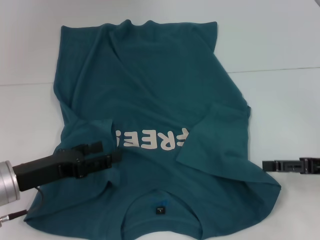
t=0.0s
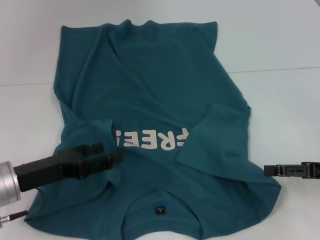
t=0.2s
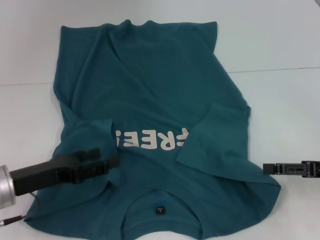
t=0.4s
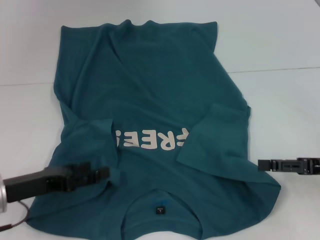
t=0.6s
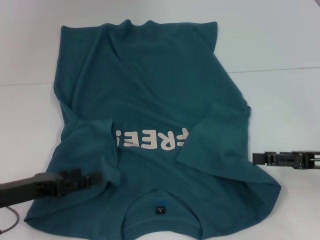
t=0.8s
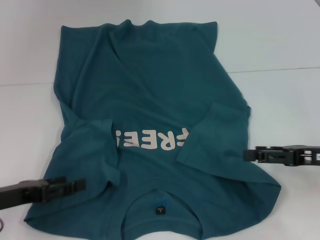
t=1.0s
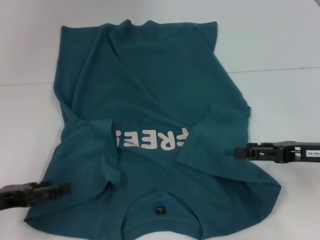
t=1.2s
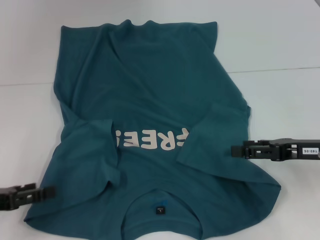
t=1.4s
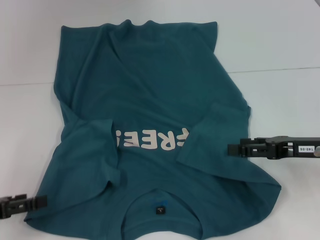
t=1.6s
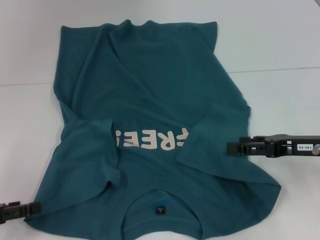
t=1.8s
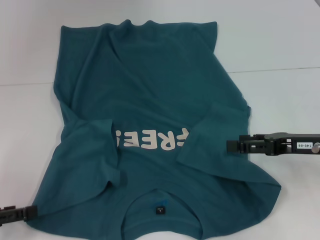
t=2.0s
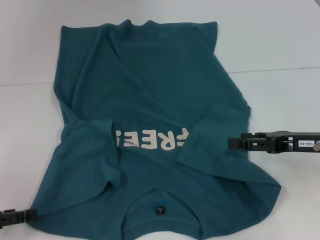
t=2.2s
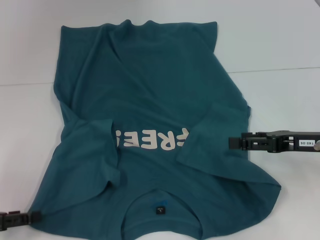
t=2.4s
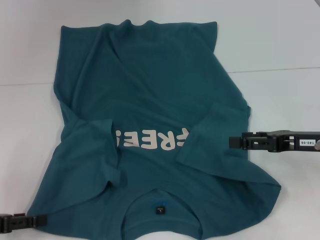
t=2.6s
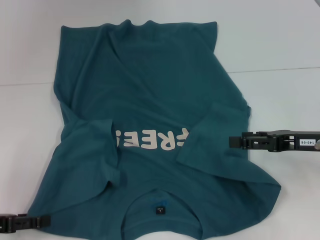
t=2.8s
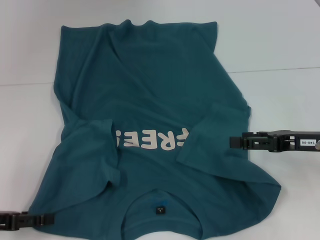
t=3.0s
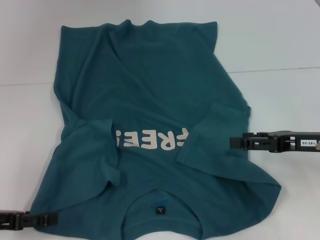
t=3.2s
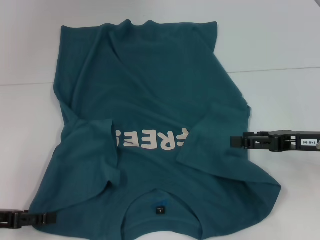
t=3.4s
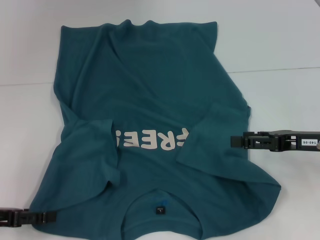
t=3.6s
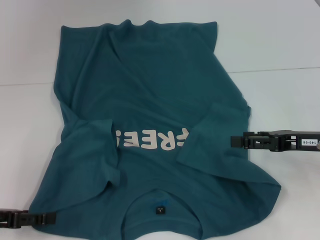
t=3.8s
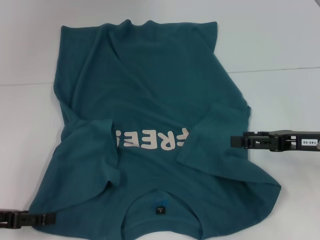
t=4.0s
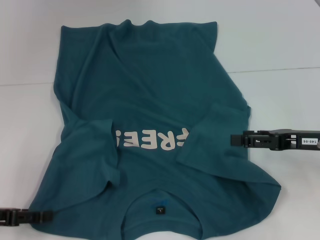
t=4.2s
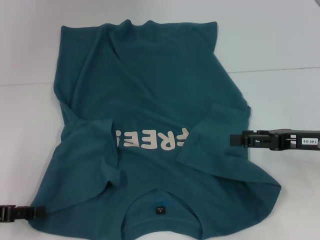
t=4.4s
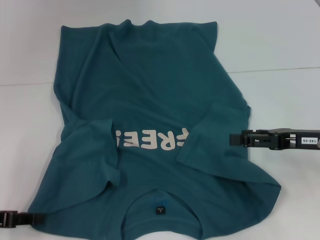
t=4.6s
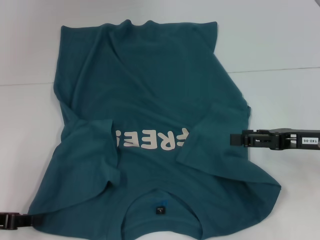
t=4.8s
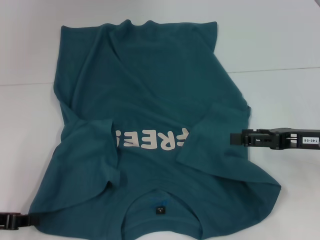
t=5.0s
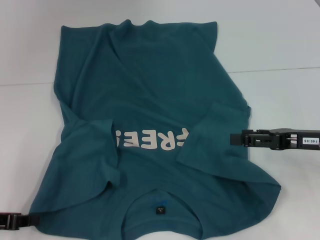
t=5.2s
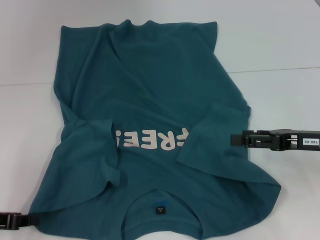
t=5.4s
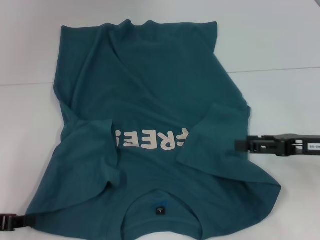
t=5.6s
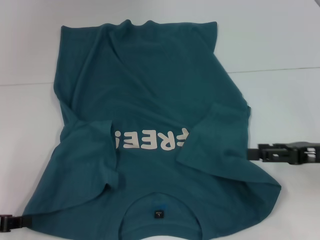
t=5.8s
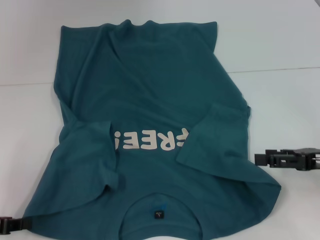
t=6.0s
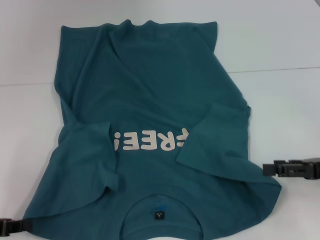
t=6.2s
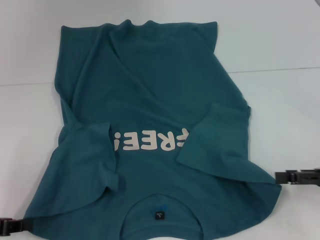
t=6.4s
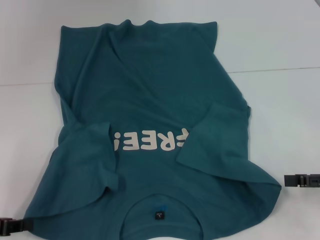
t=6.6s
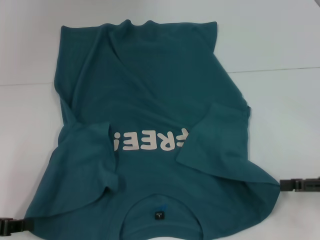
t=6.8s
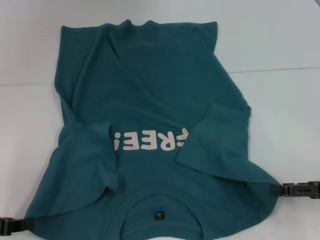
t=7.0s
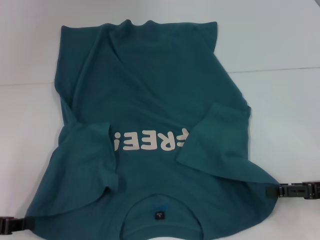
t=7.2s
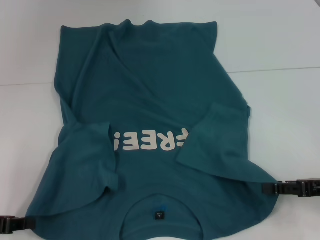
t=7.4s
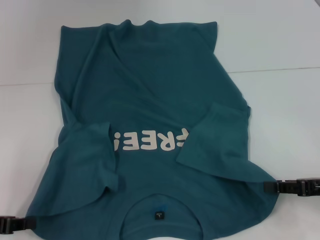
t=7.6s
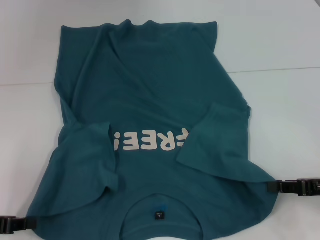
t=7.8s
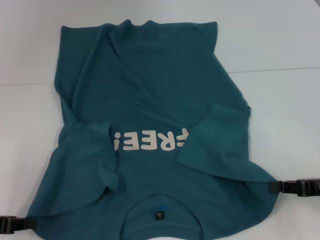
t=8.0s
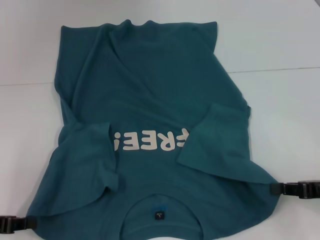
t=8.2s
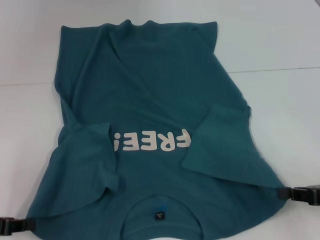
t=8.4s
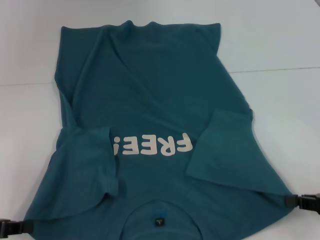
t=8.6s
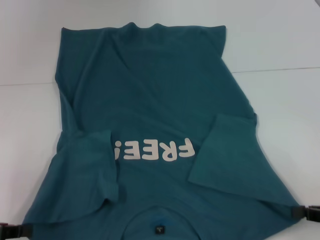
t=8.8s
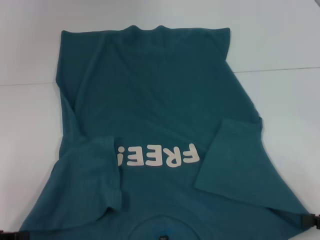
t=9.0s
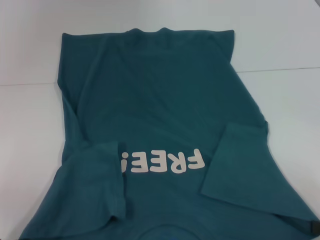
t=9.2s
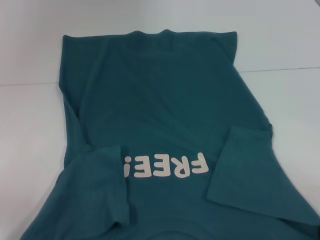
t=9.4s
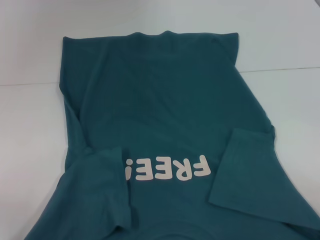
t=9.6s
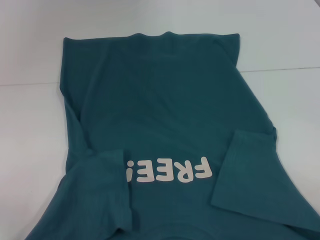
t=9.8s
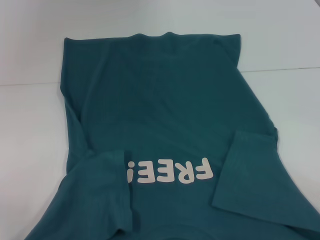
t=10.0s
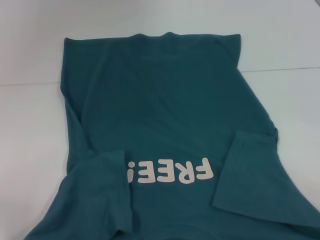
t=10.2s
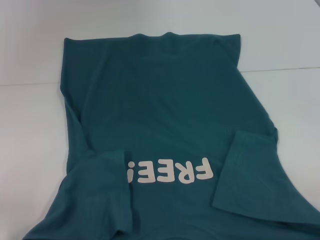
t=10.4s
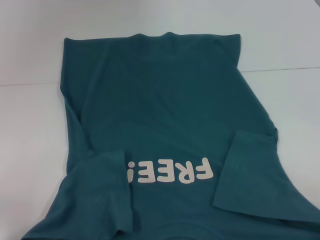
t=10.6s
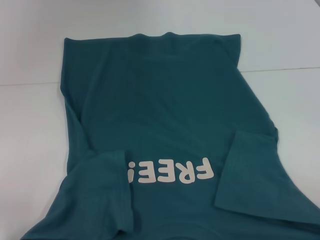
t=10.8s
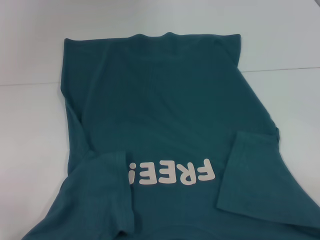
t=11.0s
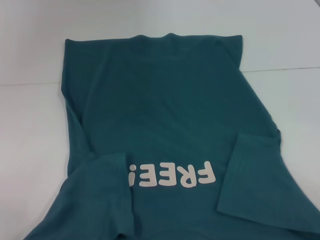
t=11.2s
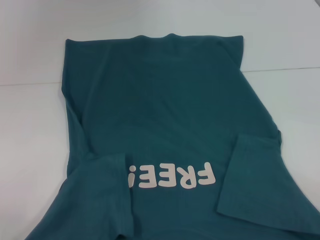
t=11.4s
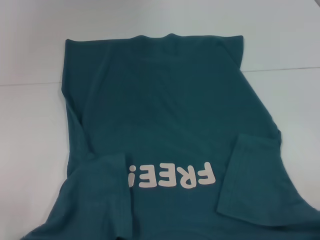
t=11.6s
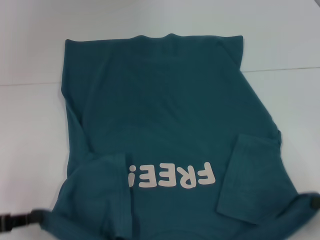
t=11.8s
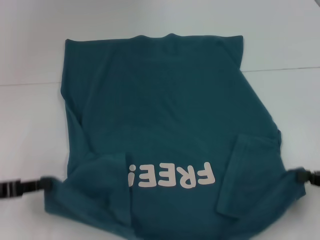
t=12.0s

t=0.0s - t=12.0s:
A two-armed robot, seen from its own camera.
Step, t=0.0s - t=5.4s: Grab the bottom left corner with your left hand.
Step, t=5.6s - t=8.4s: Grab the bottom right corner with your right hand.
t=0.0s - t=1.6s: The right gripper shifts by about 5 cm; the left gripper travels to the left by approximately 10 cm.
t=1.6s - t=3.0s: The grippers move only a little.
t=3.0s - t=4.4s: Neither gripper changes place.
t=4.4s - t=6.0s: The left gripper closes up.
t=6.0s - t=7.6s: There are only small adjustments of the grippers.
t=7.6s - t=9.0s: The right gripper goes some 5 cm backward, and closes up.
t=9.0s - t=10.4s: There are only small adjustments of the grippers.
t=10.4s - t=12.0s: Both grippers travel together forward, about 5 cm.

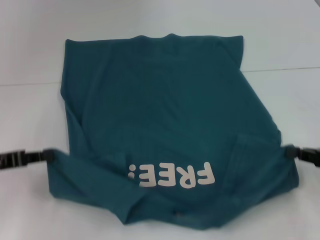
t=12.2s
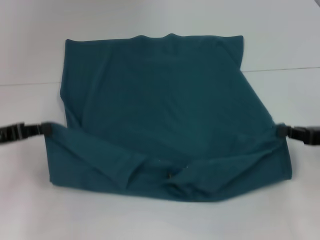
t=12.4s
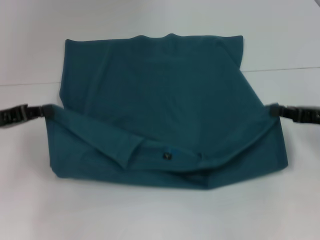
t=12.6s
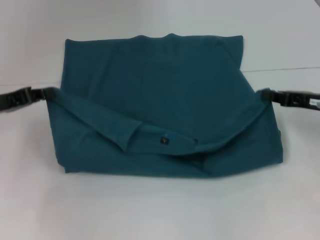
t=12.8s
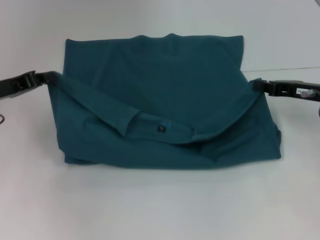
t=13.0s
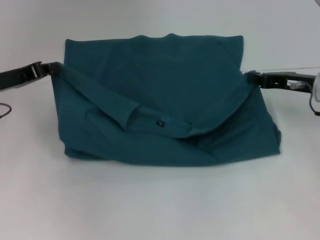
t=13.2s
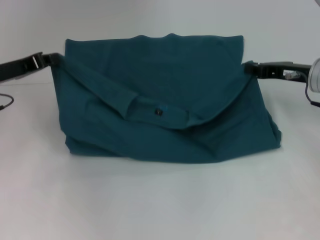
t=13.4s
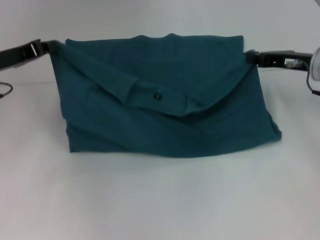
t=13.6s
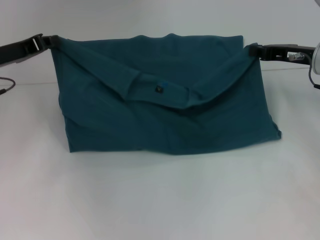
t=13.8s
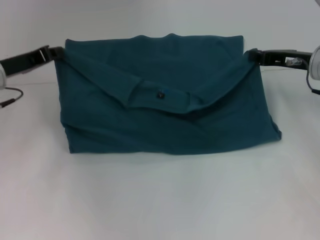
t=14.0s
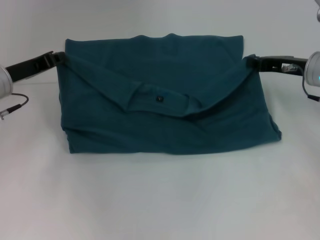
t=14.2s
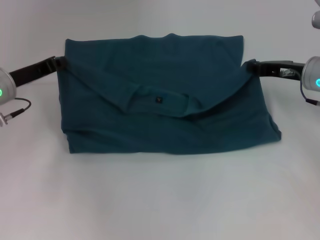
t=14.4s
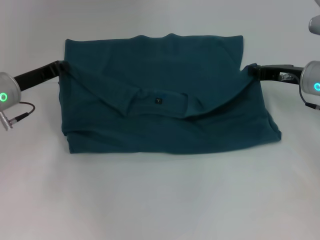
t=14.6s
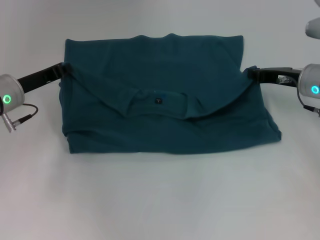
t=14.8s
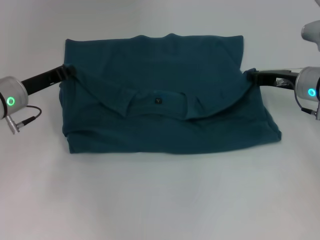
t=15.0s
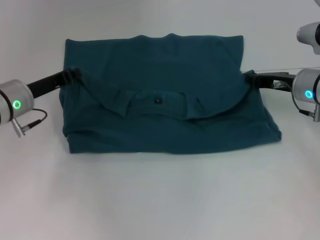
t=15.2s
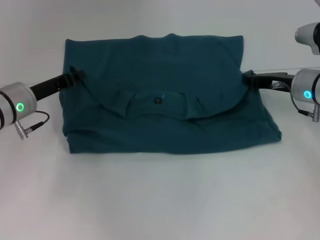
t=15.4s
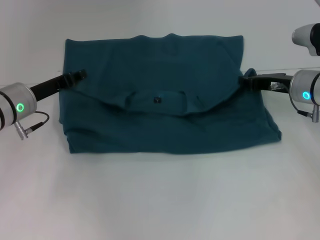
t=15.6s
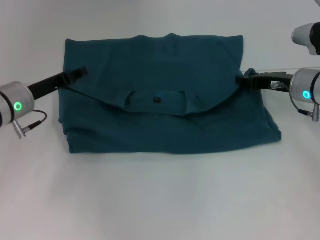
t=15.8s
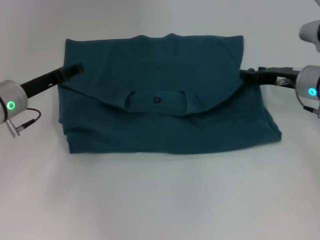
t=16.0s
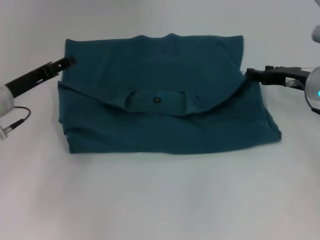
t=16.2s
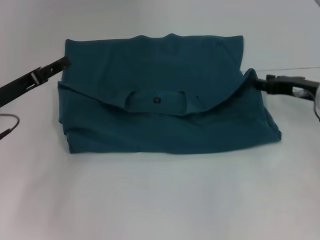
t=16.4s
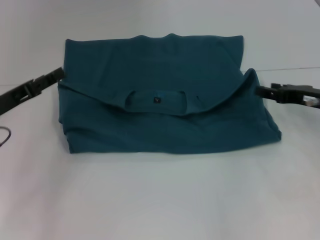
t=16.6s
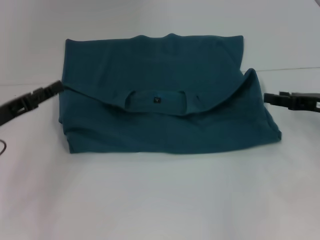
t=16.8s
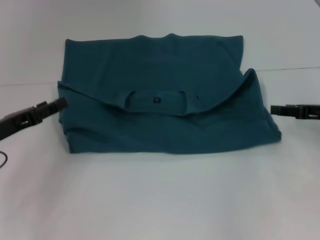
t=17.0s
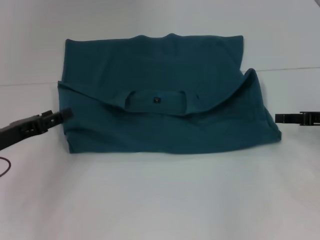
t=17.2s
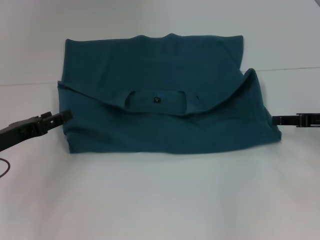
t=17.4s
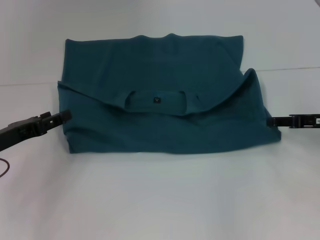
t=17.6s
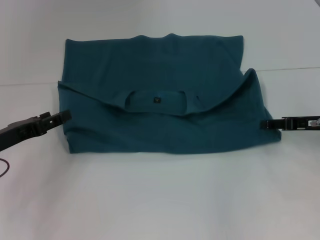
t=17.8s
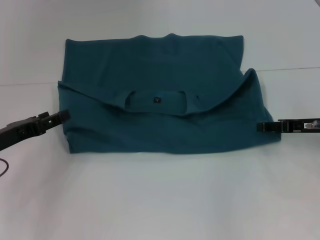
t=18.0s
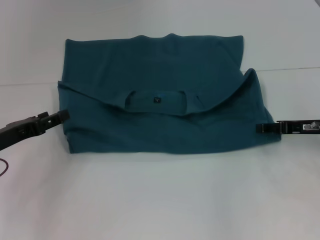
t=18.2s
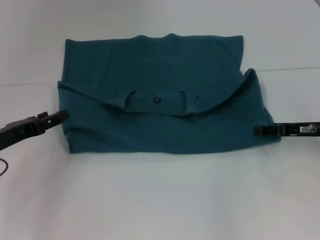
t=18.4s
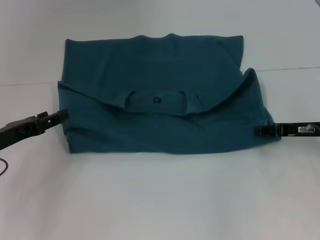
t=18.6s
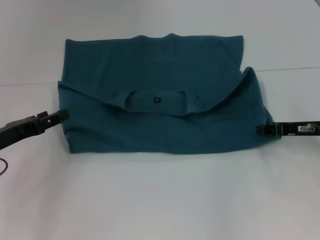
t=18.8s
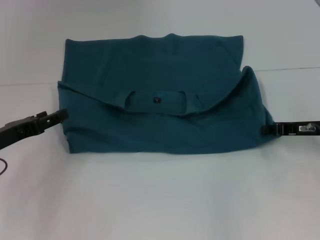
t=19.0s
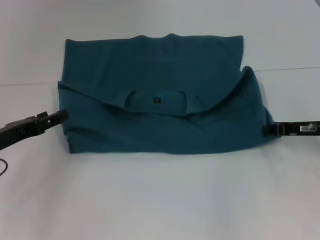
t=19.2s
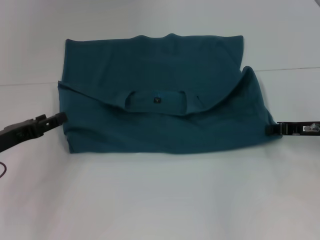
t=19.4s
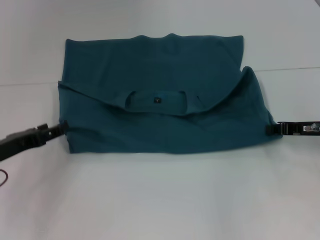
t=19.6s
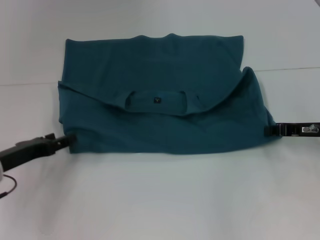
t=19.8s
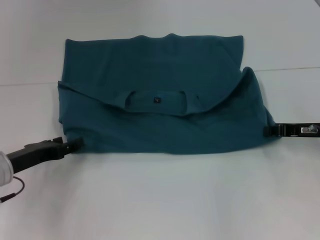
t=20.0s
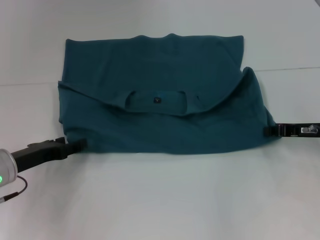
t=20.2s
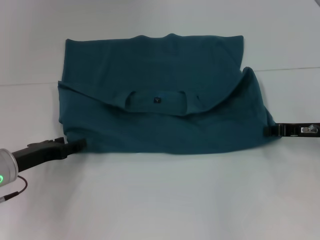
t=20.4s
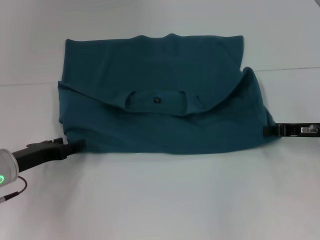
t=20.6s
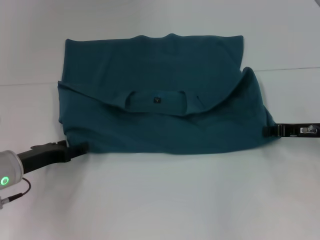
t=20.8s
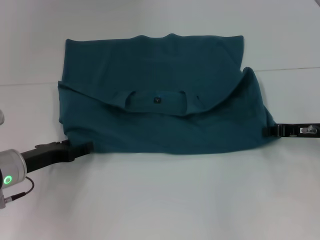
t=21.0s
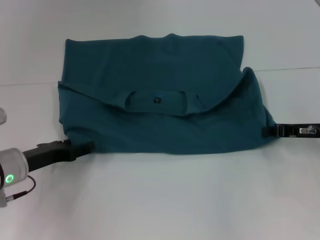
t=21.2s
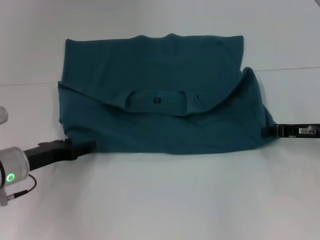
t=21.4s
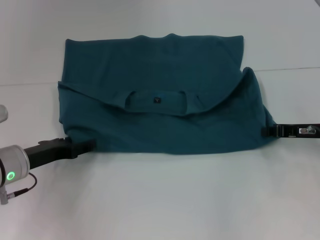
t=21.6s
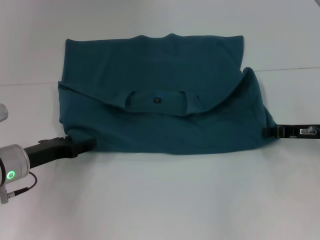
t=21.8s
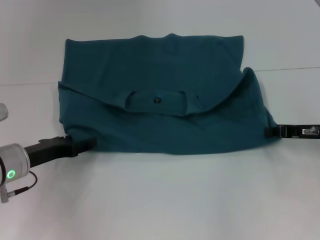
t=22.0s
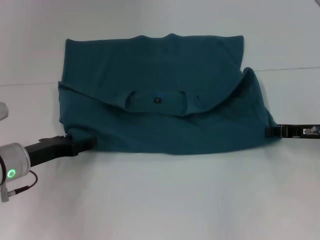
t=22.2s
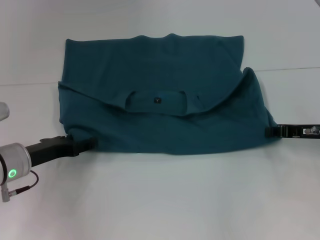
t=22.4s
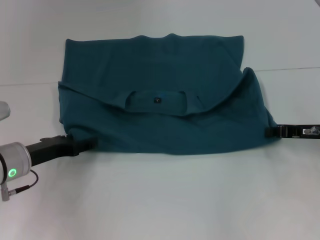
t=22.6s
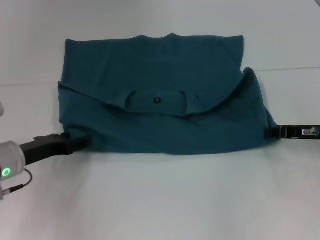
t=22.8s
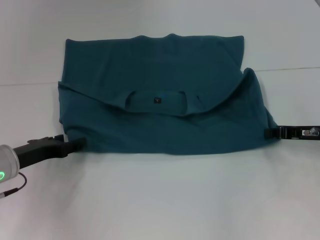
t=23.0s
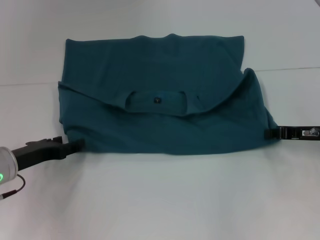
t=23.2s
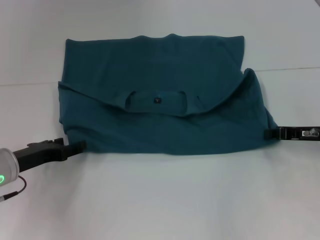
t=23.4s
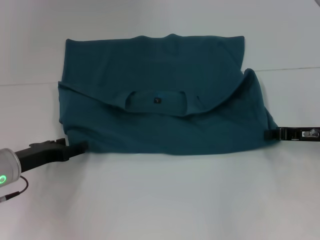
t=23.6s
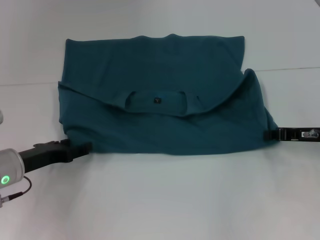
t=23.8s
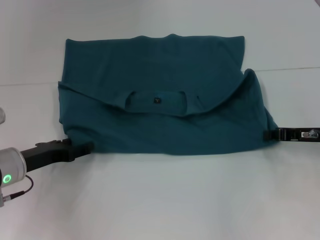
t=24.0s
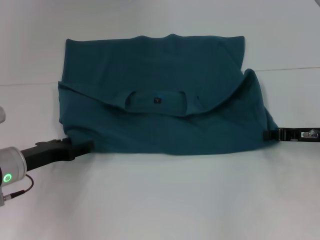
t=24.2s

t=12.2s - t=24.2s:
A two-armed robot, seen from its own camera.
Step, t=12.2s - t=16.0s: Fold the clothes to the left.
Step, t=12.2s - t=16.0s: Fold the clothes to the right.
t=12.2s - t=13.8s: The right gripper goes roughly 20 cm forward and to the left; the left gripper is displaced forward and upward by about 15 cm.
t=13.8s - t=15.2s: The left gripper shifts approximately 5 cm downward; the right gripper shifts by roughly 5 cm.
t=15.2s - t=16.6s: The right gripper moves backward, roughly 5 cm, and opens up. The left gripper travels backward and to the left by about 10 cm, and opens.
t=16.6s - t=18.2s: The grippers move only a little.
t=18.2s - t=19.8s: The right gripper closes its fingers.
t=19.8s - t=21.2s: The grippers stay close to where they were, moving slightly.
t=21.2s - t=22.6s: The two grippers keep their place.
t=22.6s - t=24.2s: The grippers move only a little.
